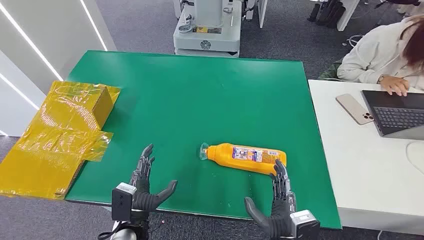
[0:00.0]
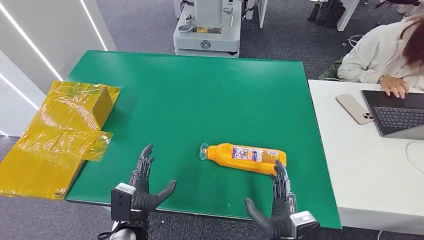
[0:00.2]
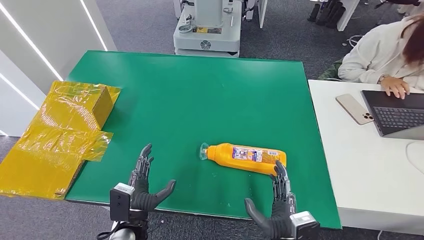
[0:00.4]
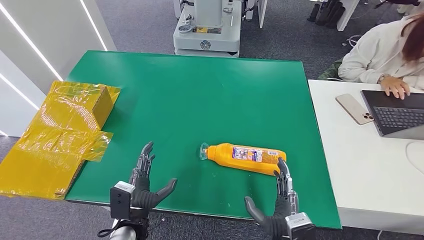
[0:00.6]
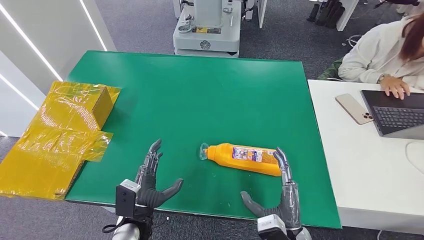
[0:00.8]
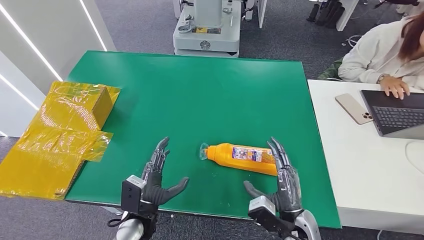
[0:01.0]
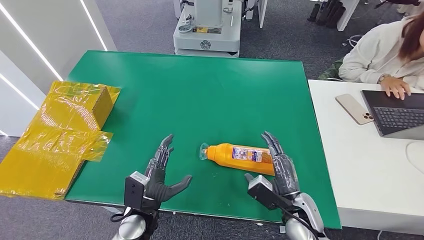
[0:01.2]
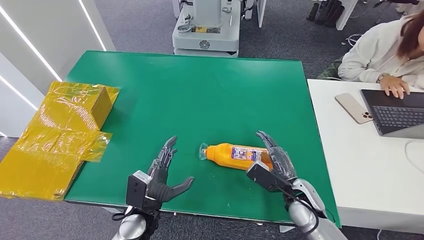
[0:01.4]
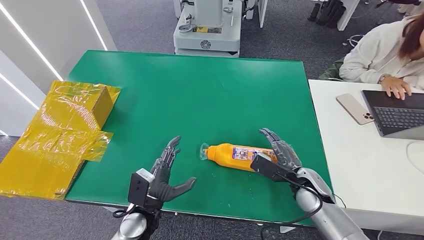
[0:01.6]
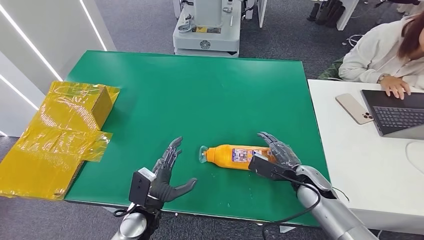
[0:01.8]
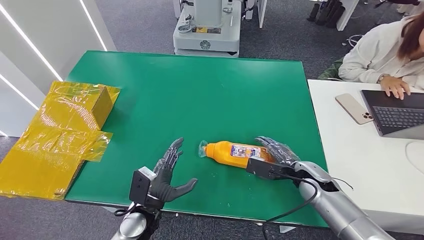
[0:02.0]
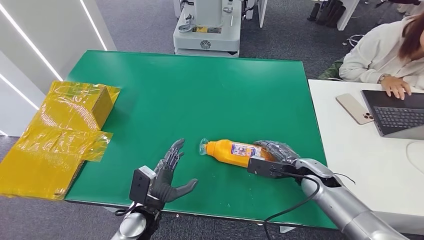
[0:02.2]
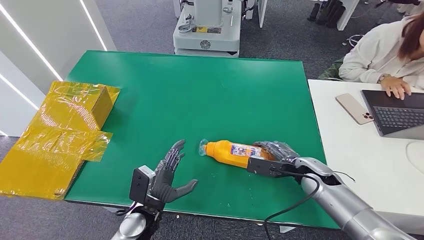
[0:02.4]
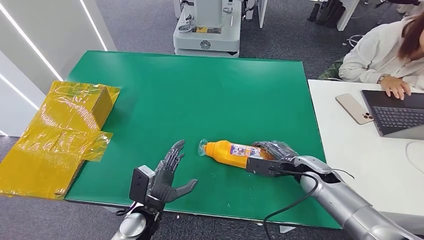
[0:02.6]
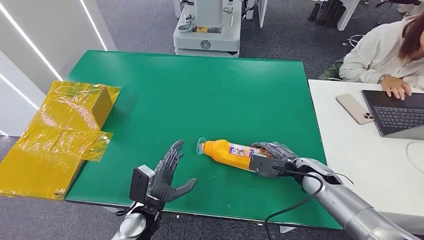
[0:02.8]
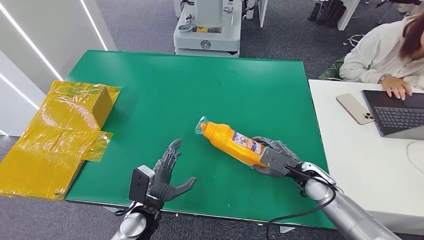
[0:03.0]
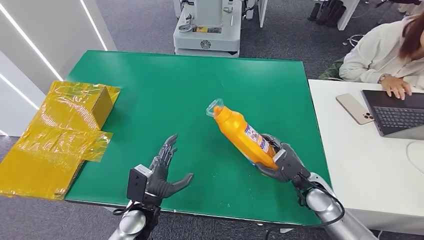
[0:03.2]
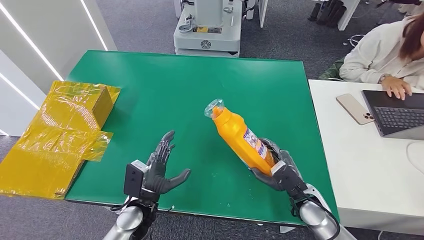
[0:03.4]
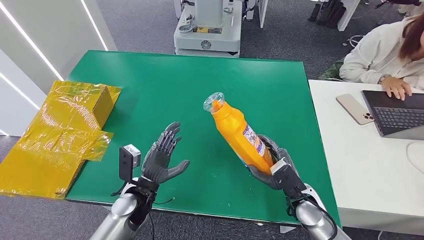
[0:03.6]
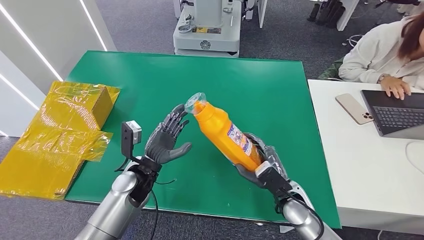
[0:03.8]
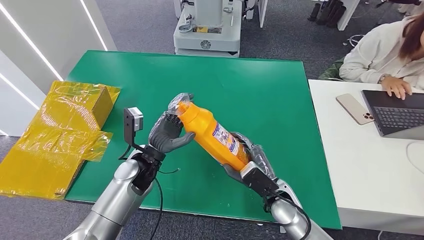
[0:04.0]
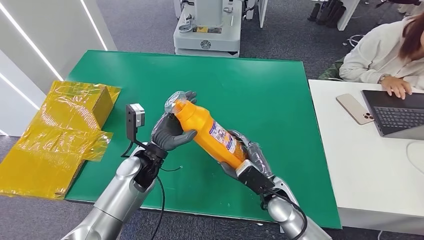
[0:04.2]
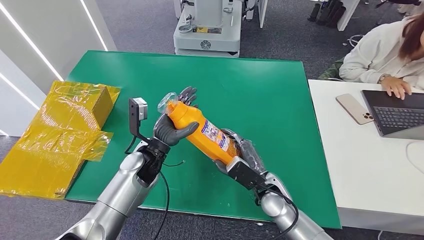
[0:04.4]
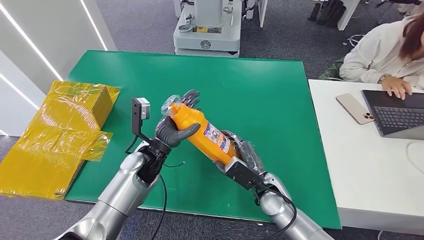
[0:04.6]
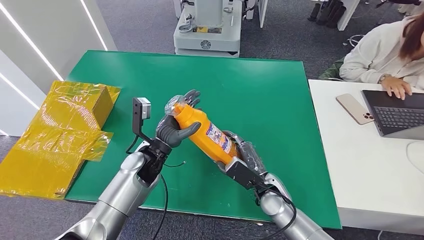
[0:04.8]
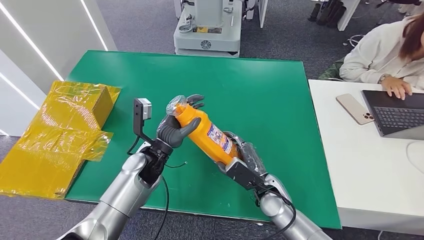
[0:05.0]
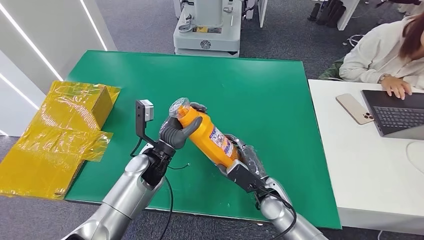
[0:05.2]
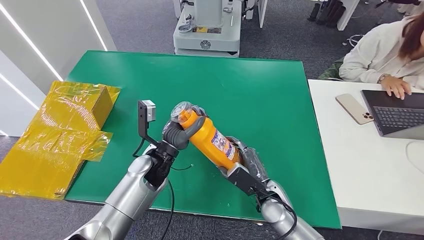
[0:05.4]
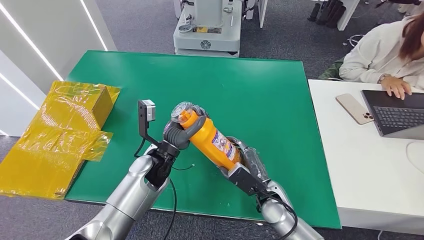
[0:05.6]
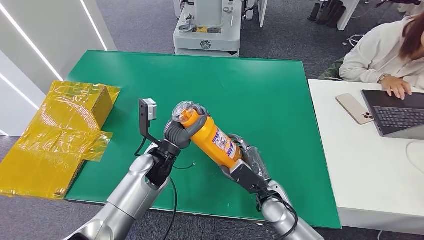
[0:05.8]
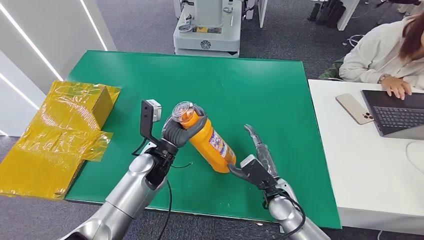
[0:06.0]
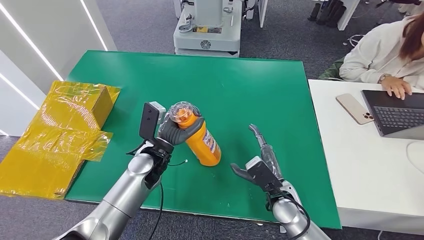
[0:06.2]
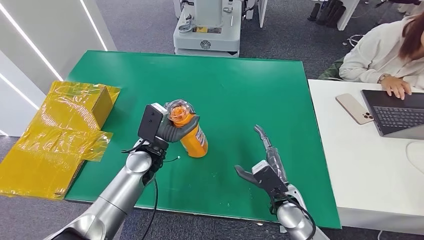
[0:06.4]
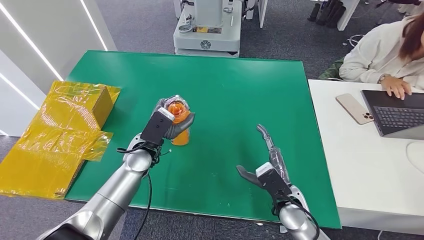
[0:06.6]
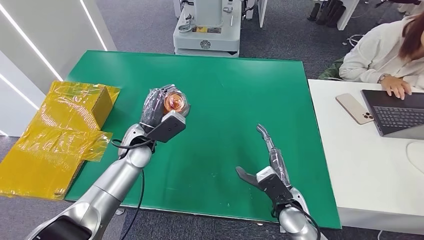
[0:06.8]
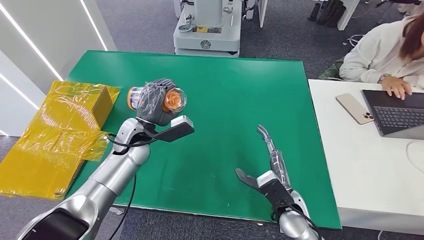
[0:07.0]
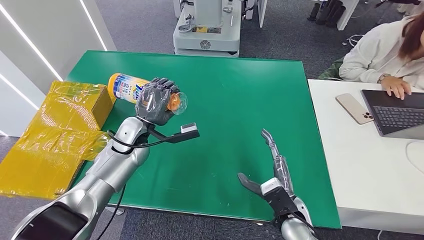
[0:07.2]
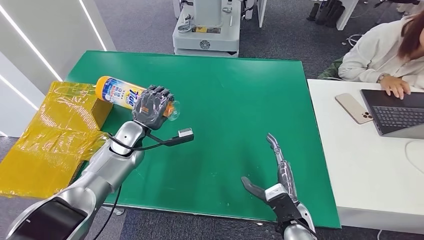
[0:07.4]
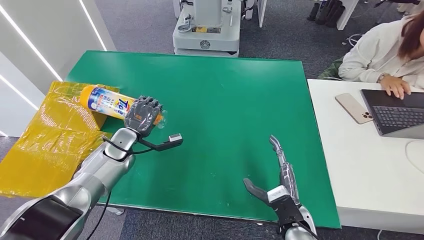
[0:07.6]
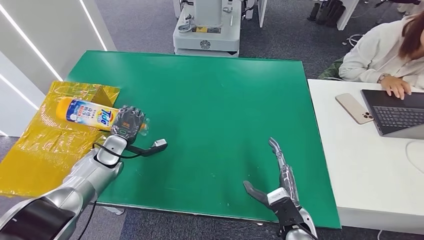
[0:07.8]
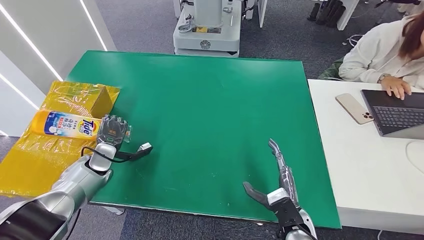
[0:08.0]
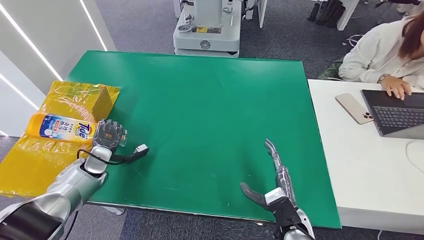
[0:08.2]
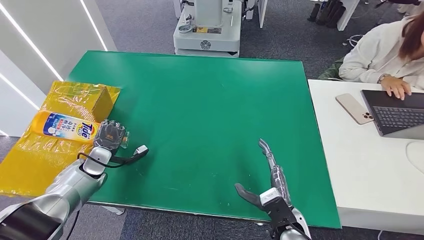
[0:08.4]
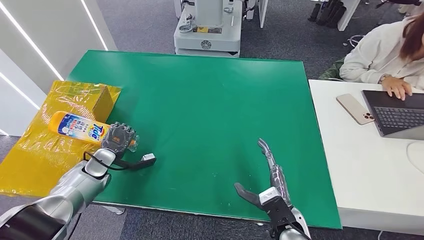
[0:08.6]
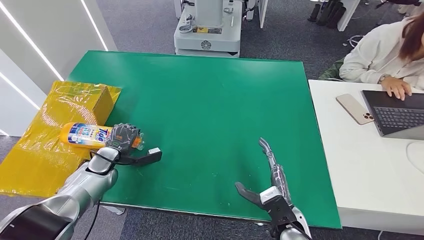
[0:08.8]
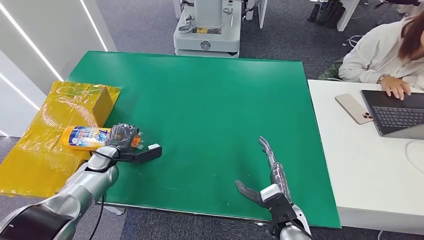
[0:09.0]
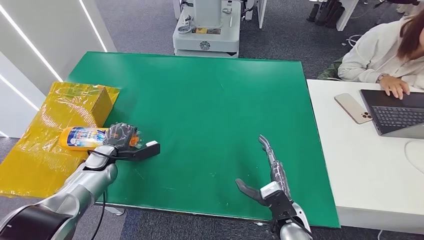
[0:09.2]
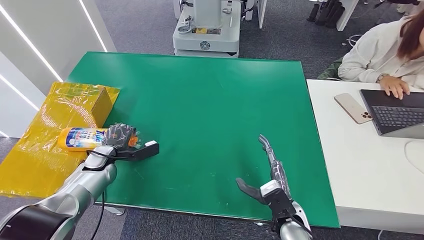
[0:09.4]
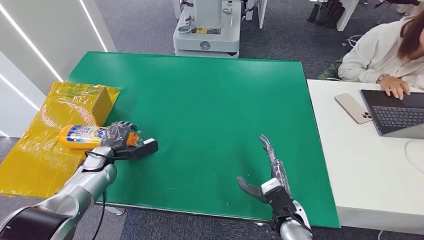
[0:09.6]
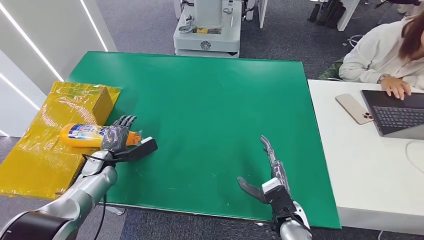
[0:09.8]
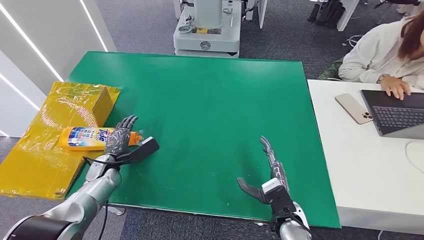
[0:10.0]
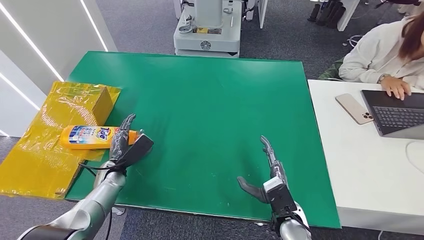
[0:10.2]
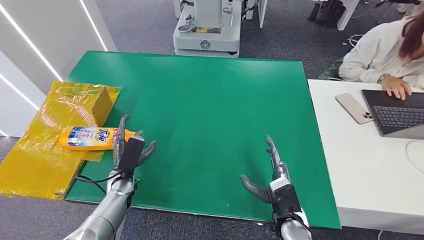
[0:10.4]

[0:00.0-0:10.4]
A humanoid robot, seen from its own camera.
Step, 0:00.0 to 0:03.0: Pick up the bottle from the table.
Step, 0:03.4 to 0:10.4: Turn the bottle to the front side.
0:01.4 to 0:03.0: The right hand shifts some 5 cm forward.
0:03.0 to 0:04.4: The right hand shifts approximately 15 cm to the left. Meanwhile the left hand is displaced forward and upward by about 15 cm.
0:04.4 to 0:06.0: The hands stay close to where they were, moving slightly.
0:06.0 to 0:07.4: The left hand moves to the left and forward, about 10 cm. The right hand travels backward by some 5 cm.
0:07.4 to 0:09.0: The left hand is displaced to the left and downward by some 15 cm.
0:09.0 to 0:10.4: The left hand shifts approximately 10 cm to the right and backward.

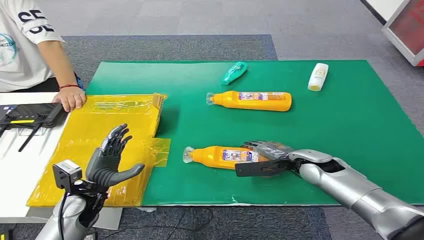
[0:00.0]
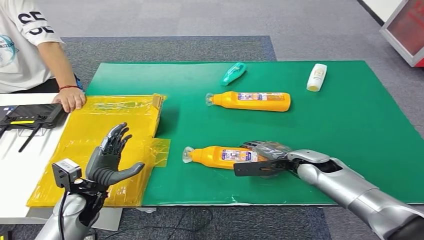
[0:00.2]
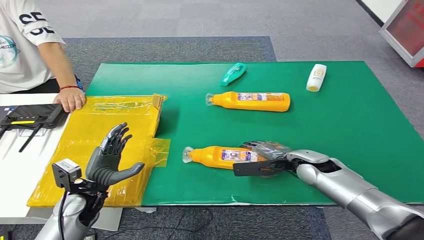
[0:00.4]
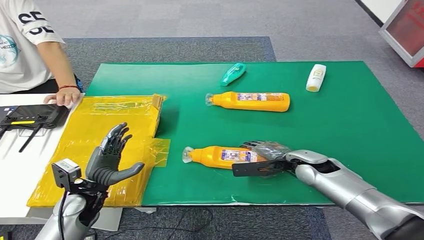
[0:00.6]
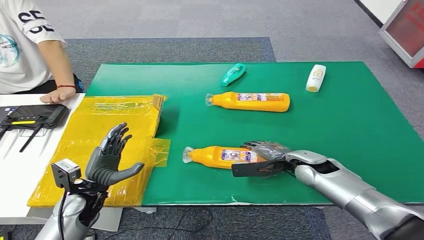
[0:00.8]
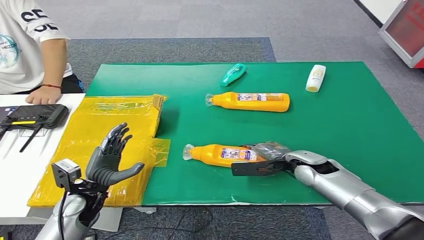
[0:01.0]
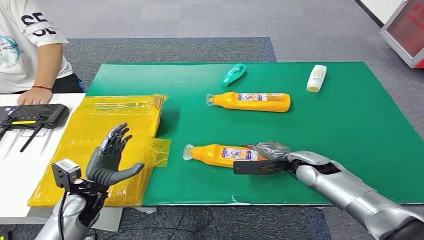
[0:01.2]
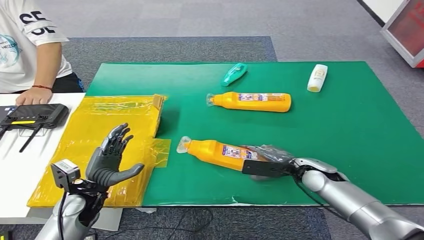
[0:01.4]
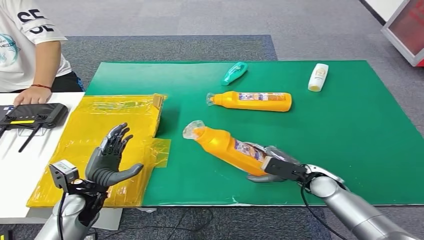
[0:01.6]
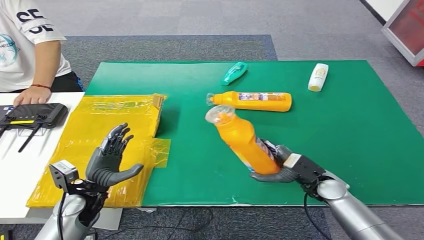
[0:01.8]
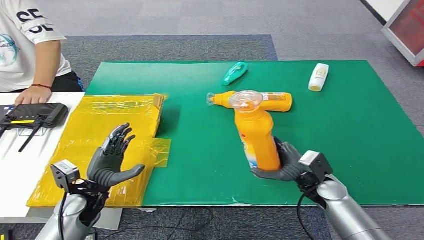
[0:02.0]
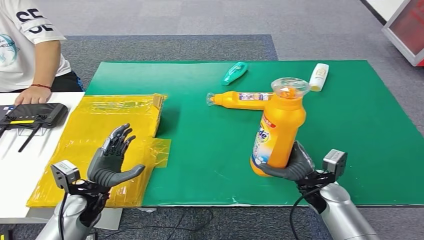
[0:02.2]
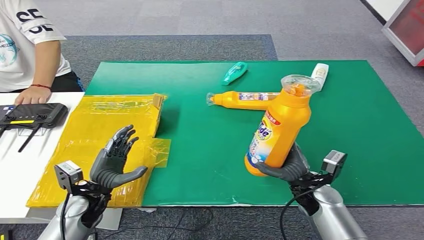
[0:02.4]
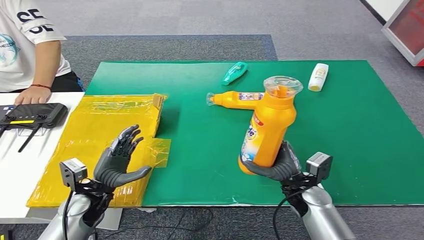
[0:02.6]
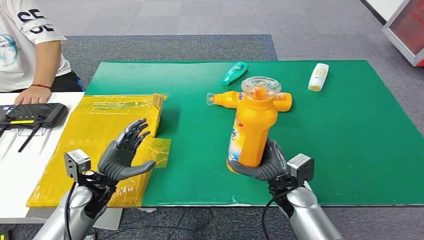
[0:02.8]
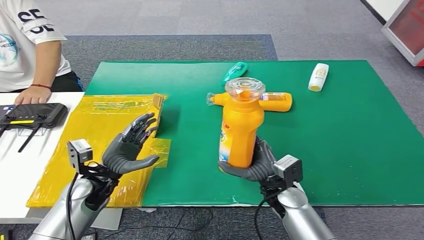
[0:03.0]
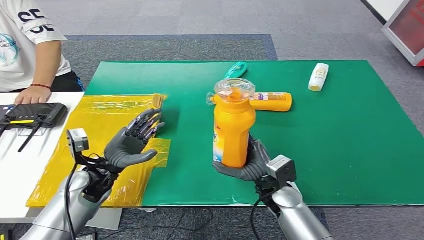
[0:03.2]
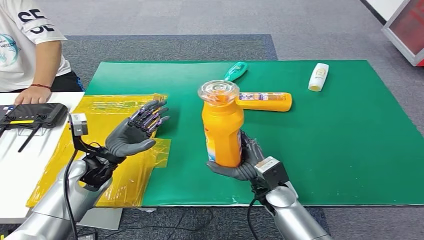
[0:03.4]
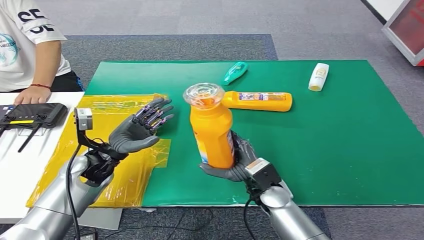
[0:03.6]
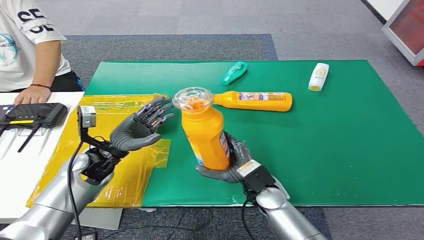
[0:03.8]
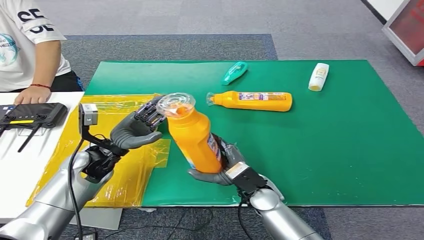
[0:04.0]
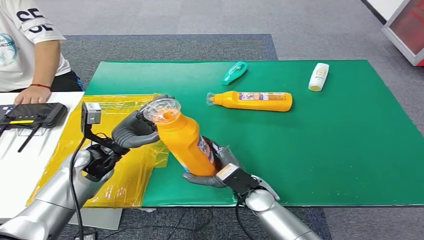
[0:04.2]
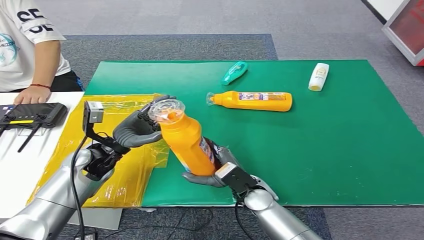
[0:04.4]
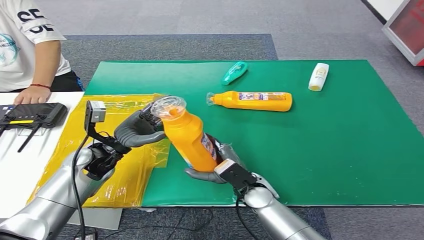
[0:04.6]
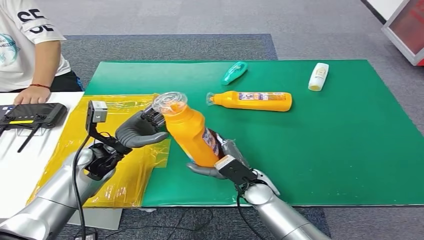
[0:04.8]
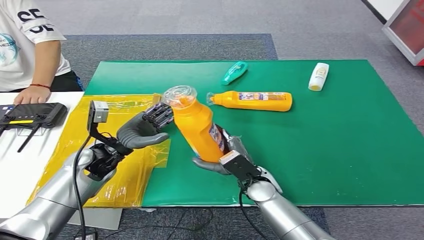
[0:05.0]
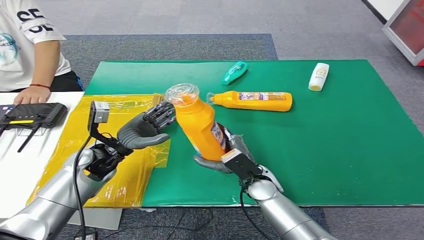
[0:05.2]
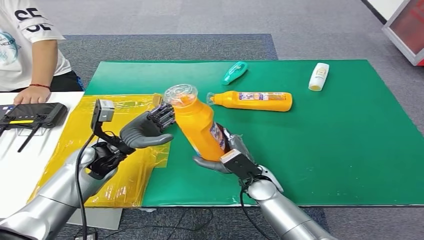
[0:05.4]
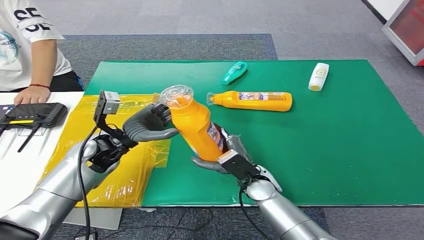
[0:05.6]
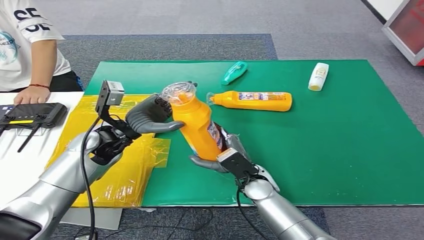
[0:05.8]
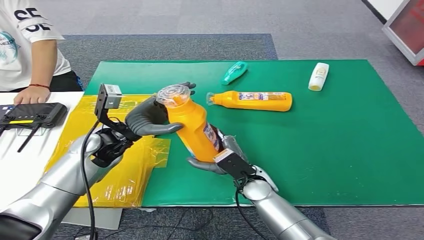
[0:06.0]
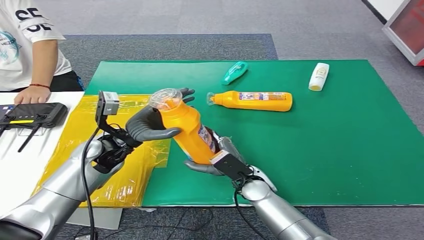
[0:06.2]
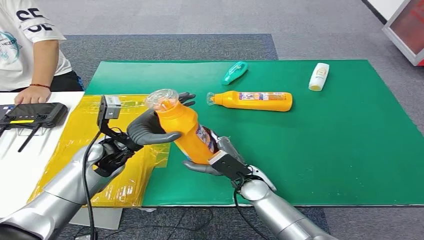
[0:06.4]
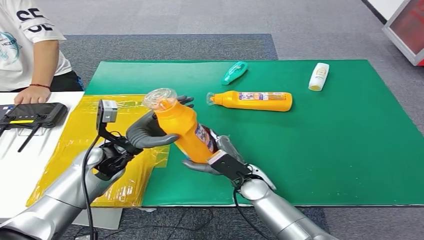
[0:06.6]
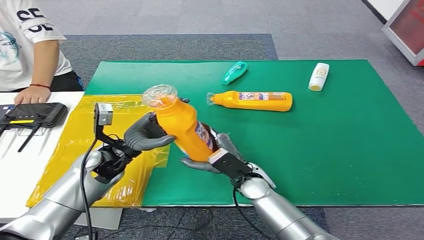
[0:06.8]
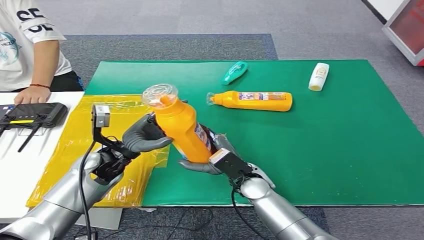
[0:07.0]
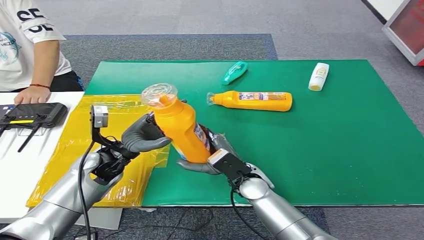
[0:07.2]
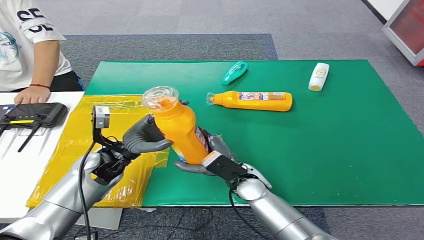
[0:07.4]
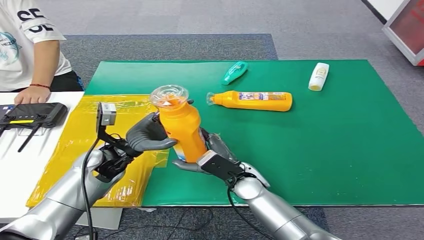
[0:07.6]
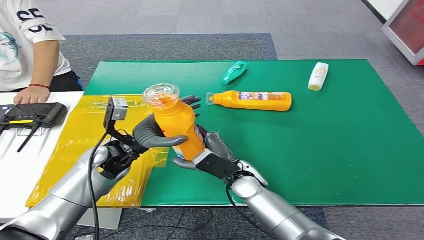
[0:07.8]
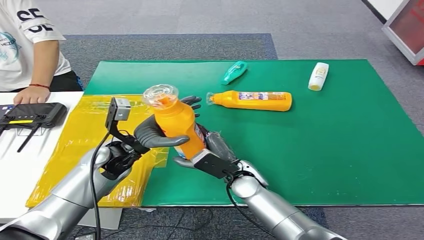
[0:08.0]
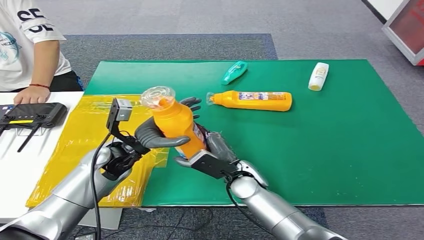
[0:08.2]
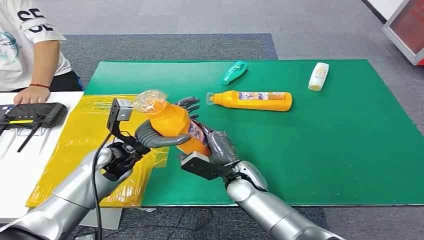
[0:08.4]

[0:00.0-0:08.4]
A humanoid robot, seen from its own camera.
Step, 0:00.0 to 0:03.4: Pick up the bottle from the table.
0:04.2 to 0:05.6: There are only small adjustments of the hands.
0:05.6 to 0:07.0: The hands make only small movements.
